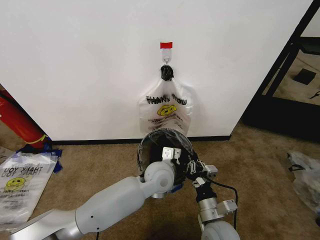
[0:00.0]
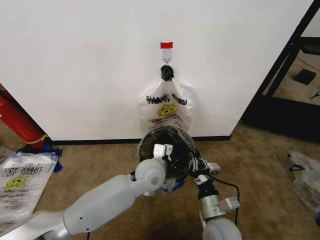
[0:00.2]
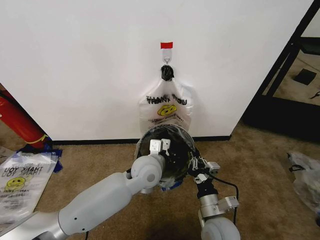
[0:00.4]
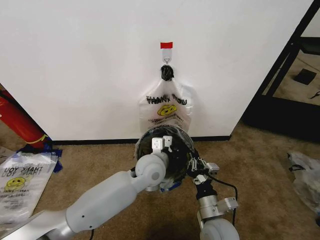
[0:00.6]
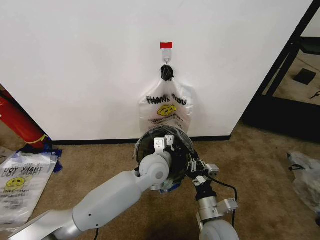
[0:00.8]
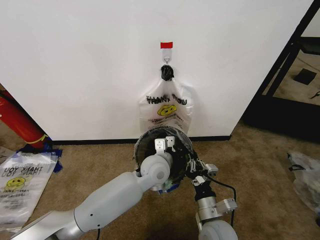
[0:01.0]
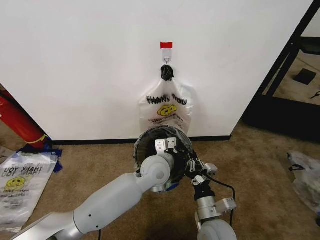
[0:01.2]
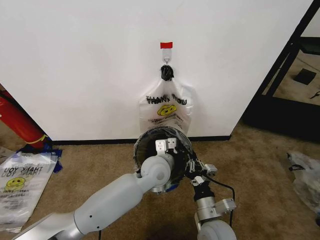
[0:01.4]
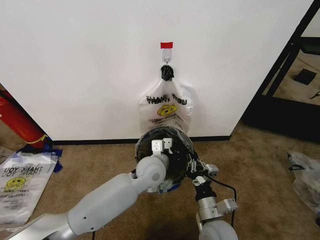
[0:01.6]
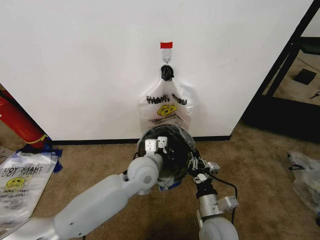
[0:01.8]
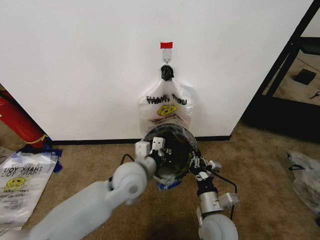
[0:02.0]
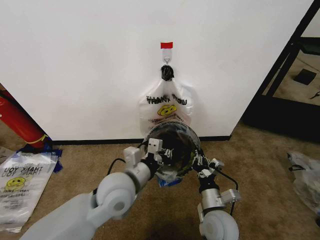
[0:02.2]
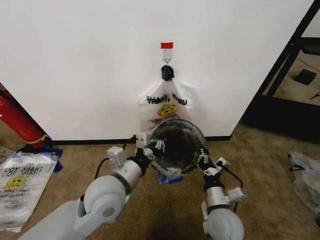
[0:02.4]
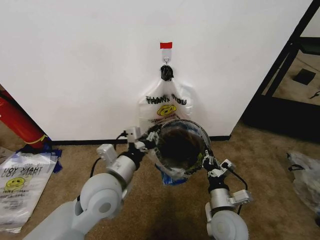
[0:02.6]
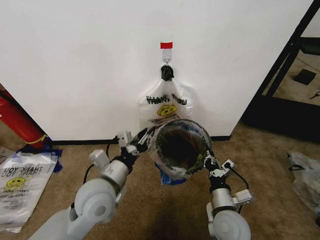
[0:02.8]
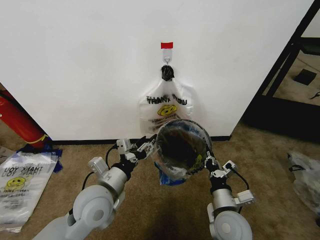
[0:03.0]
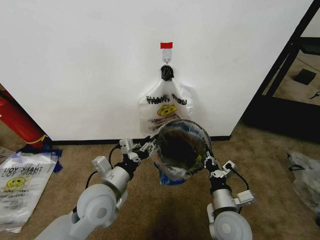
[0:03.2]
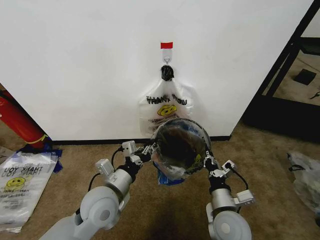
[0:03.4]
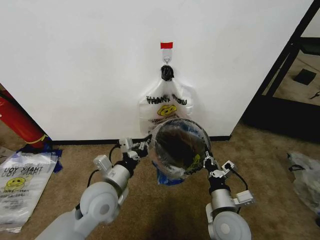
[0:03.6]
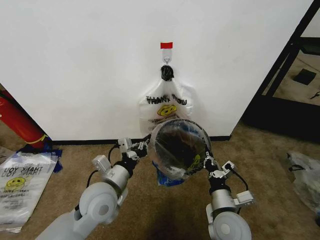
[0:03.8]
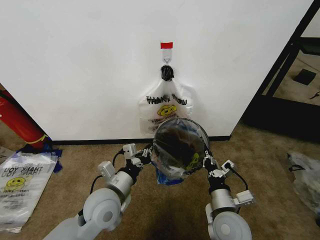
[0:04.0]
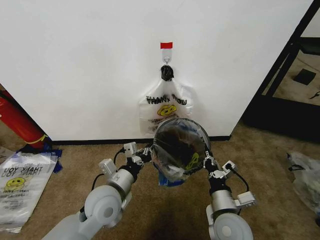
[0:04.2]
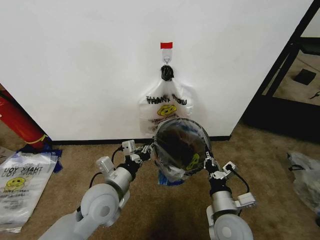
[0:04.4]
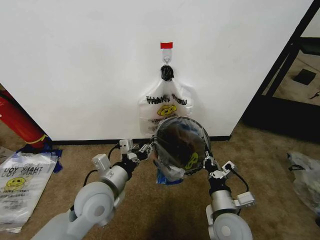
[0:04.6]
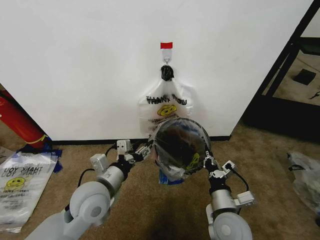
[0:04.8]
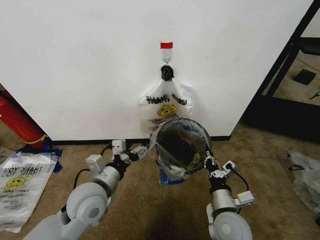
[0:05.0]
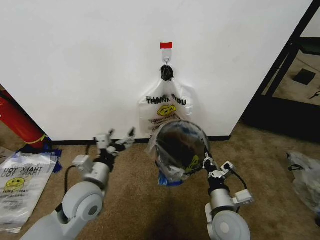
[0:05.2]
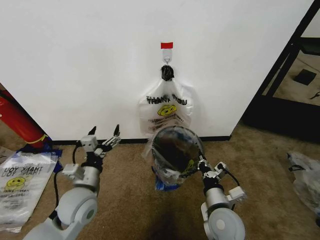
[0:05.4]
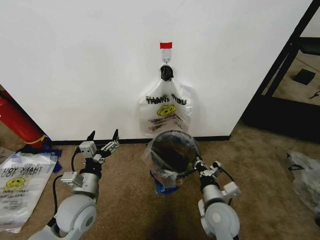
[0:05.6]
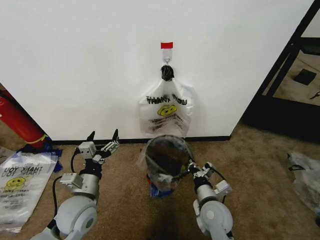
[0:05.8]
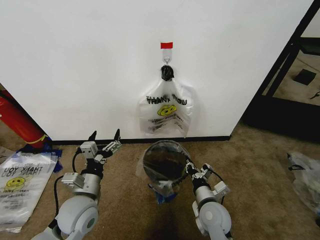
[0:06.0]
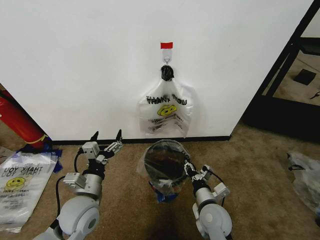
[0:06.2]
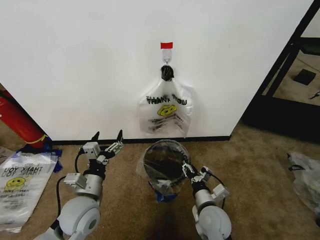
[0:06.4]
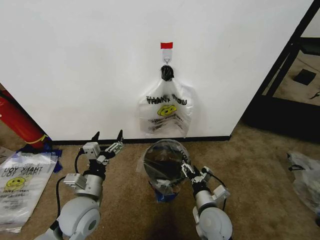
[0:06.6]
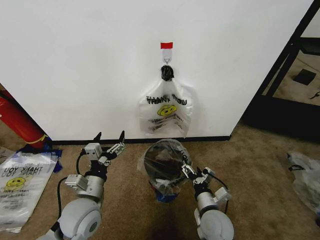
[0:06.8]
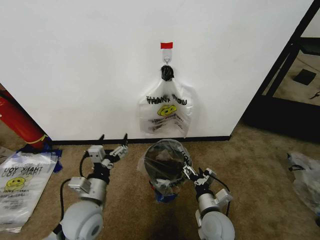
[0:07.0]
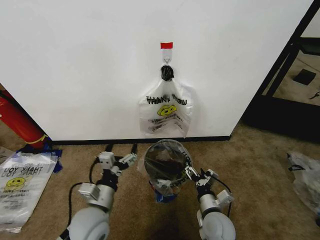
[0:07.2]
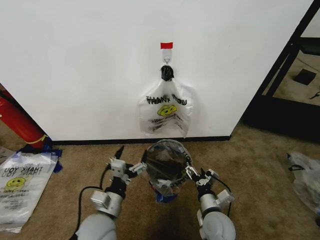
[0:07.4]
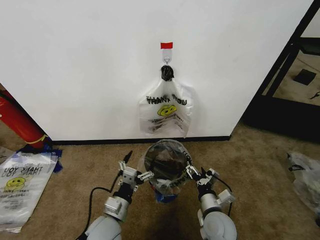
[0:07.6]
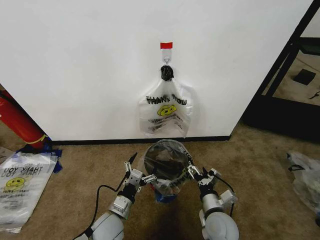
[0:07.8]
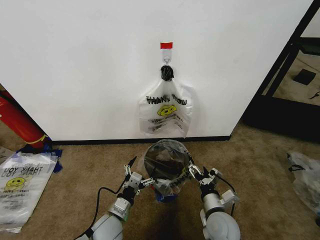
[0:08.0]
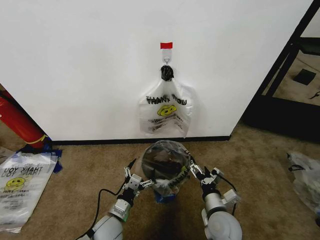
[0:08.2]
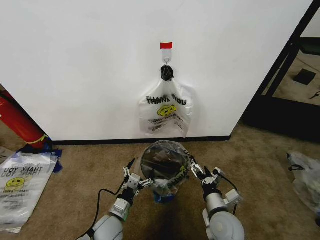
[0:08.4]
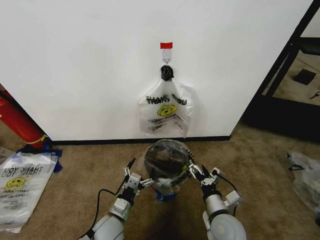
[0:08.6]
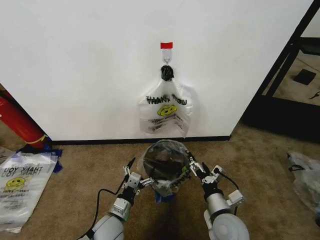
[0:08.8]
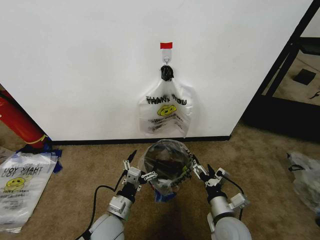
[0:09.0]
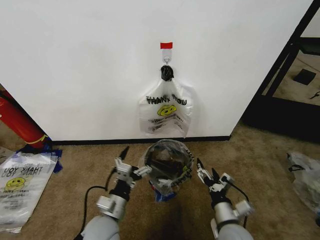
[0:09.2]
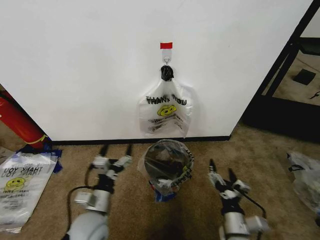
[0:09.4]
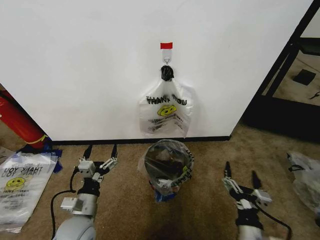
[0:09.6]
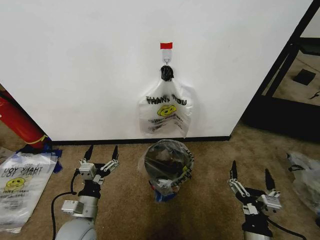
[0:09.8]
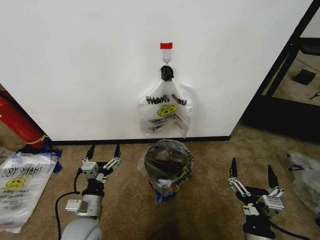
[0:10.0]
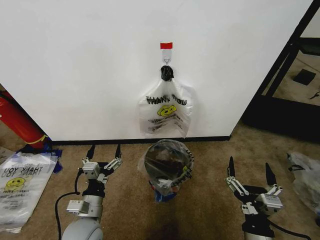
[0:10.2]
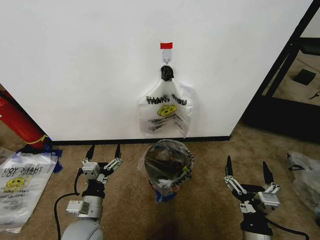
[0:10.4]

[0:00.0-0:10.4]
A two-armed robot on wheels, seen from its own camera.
Task of the whole recording: Pick up the garbage bag from the wall and place it over the trash bin.
0:00.0 to 0:01.4: The grippers stay close to where they were, moving slightly.
0:01.4 to 0:03.0: The left gripper is displaced to the left and backward by roughly 20 cm, and opens up.
0:03.0 to 0:04.4: The left gripper closes its fingers.
0:04.4 to 0:06.0: The left gripper moves to the left, about 5 cm, and opens its fingers. Meanwhile the right gripper heads downward and forward, covering roughly 5 cm.
0:06.0 to 0:07.4: The left gripper goes some 5 cm to the right, while the right gripper opens up.
0:09.0 to 0:10.4: The right gripper goes some 10 cm backward and upward. Meanwhile the left gripper travels to the left by some 5 cm.
